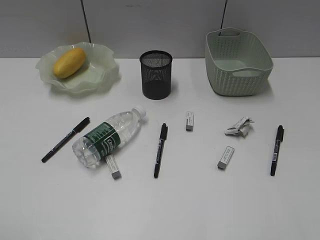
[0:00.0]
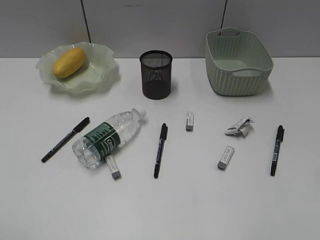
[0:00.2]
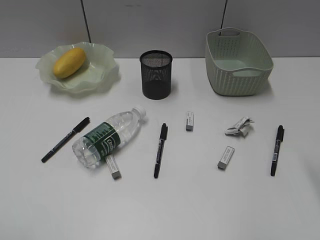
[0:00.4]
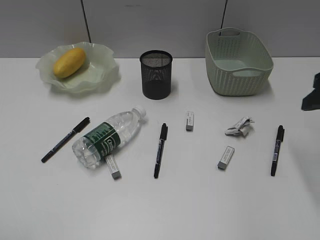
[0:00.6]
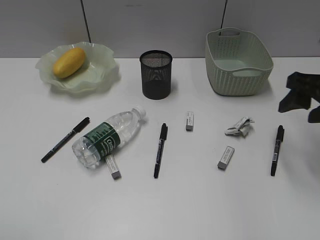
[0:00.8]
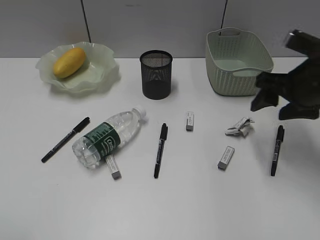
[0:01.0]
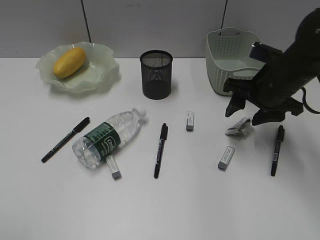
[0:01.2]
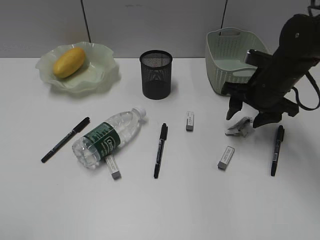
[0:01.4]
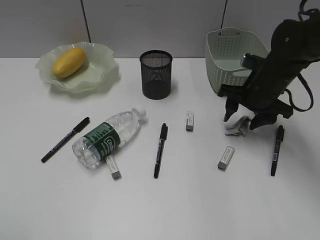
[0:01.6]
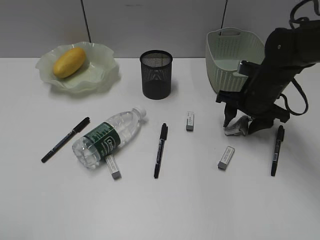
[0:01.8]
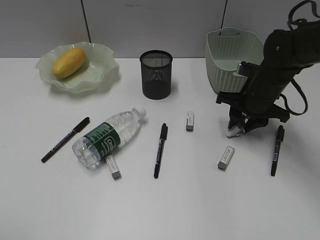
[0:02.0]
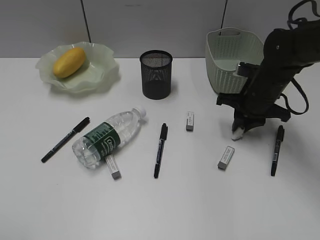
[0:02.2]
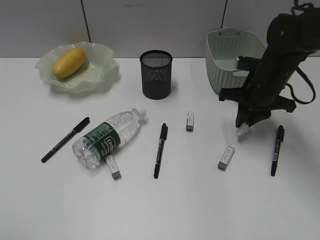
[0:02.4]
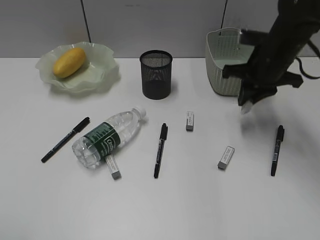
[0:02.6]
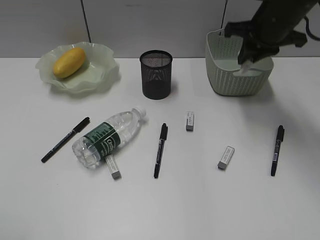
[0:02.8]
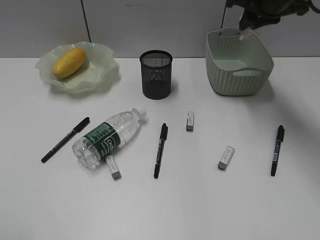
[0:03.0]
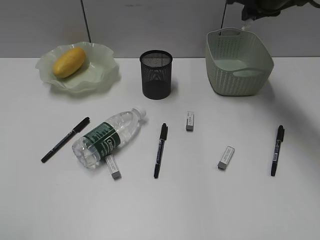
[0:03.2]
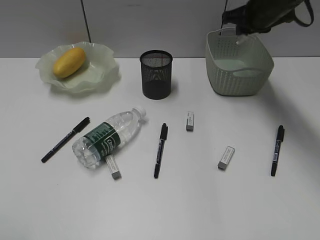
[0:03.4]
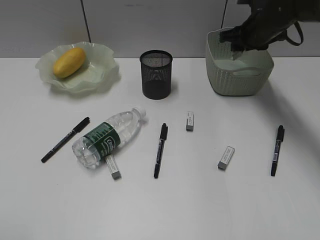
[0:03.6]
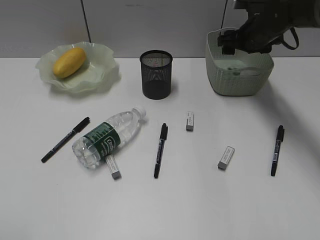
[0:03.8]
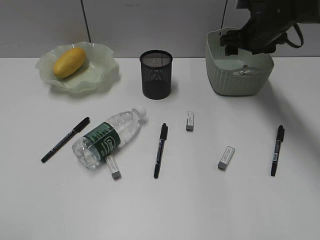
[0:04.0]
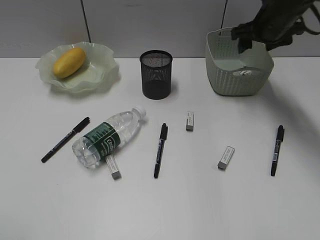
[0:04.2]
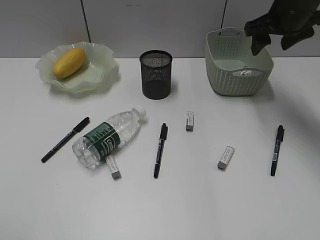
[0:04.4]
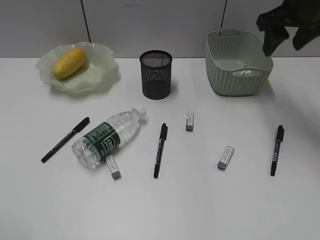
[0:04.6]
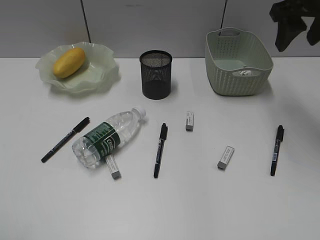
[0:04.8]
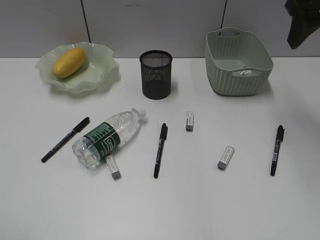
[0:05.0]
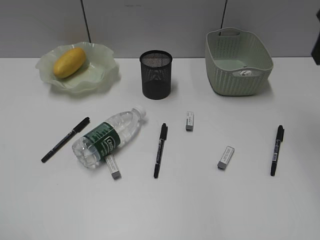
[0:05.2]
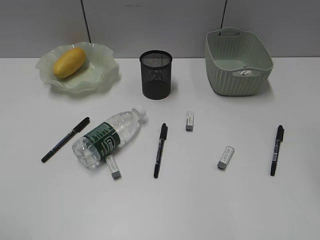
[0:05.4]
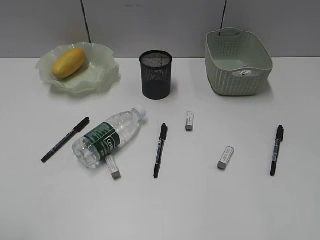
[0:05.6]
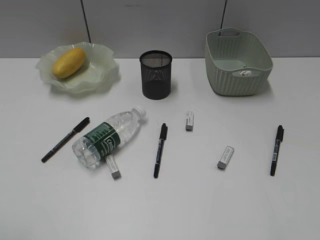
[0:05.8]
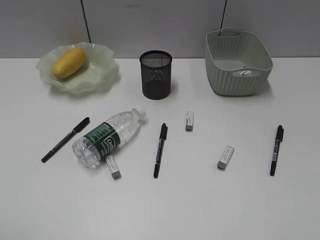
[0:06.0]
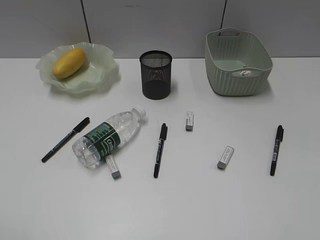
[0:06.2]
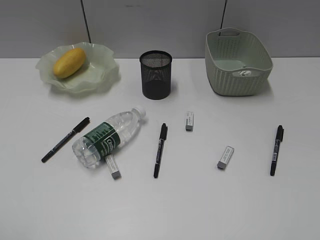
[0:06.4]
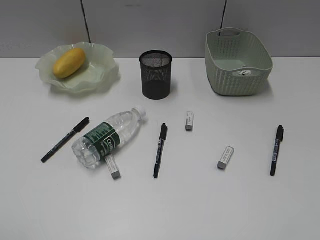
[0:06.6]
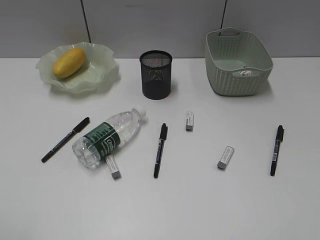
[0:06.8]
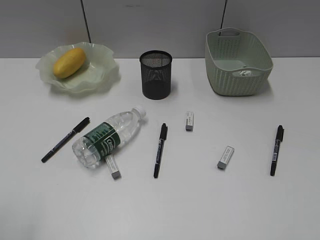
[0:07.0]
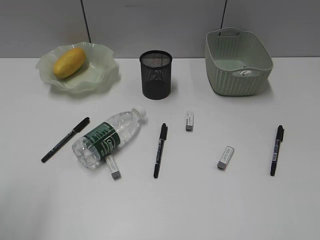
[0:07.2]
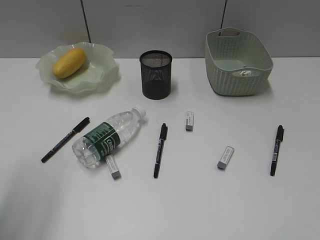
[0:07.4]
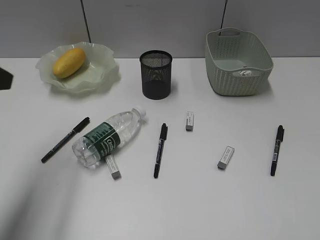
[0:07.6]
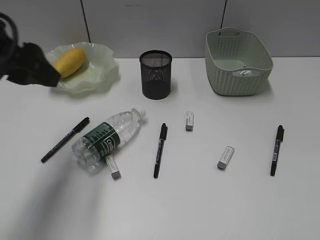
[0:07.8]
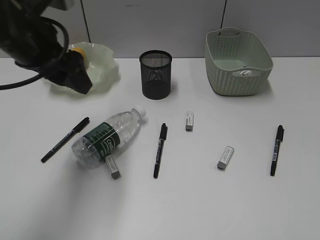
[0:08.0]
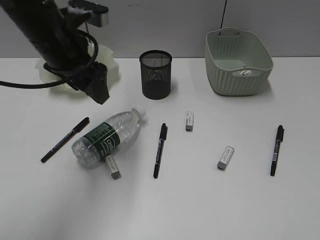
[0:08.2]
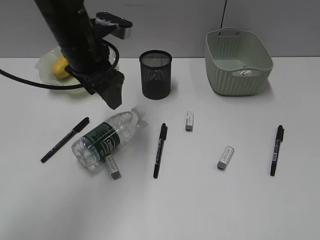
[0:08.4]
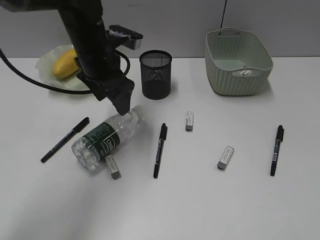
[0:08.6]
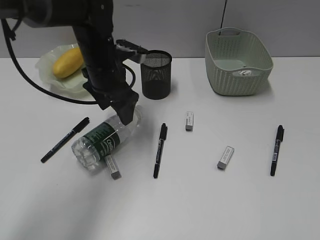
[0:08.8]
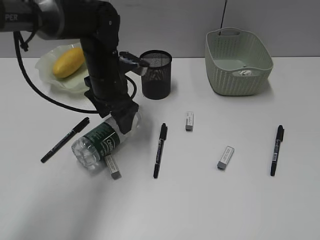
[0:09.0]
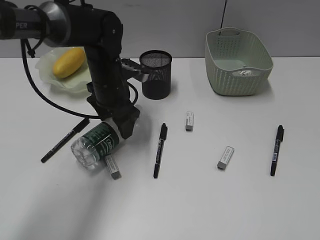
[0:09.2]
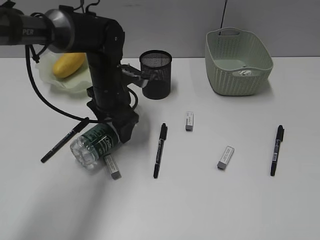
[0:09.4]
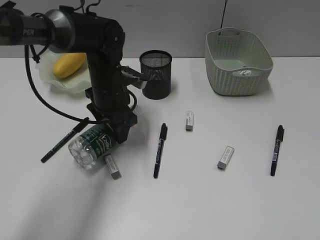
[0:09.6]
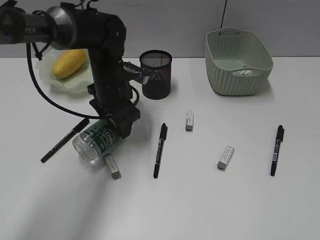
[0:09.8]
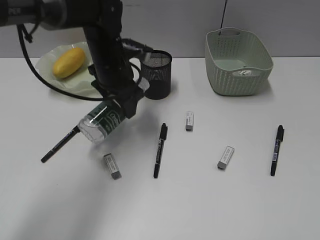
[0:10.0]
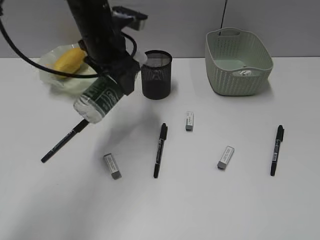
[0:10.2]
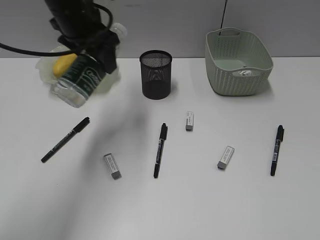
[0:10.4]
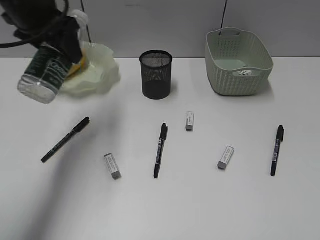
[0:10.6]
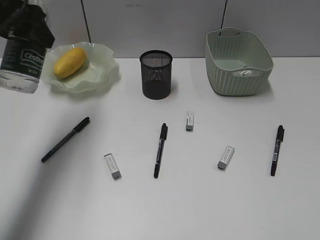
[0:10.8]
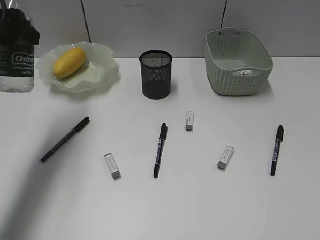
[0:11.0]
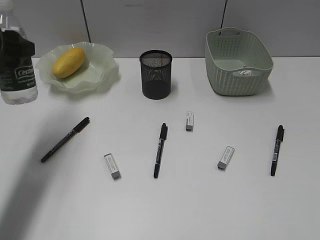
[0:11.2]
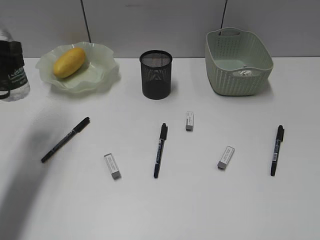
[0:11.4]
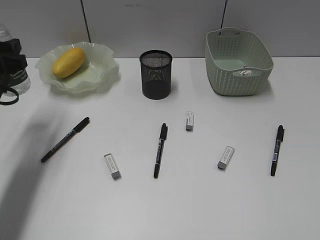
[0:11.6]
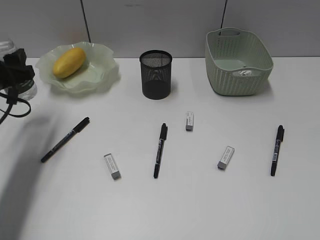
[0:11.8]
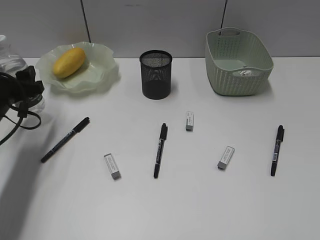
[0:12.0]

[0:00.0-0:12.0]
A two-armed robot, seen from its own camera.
Step, 0:00.0 to 0:02.2: Grasp the waste paper with right gripper.
Step, 0:02.4 to 0:03.8: Place the waste paper in the basket with right gripper.
Step, 0:04.0 to 0:09.6: Grasp the bottle with left gripper.
0:00.0 to 0:01.6: The right gripper goes some 35 cm forward and downward.
0:01.6 to 0:03.0: The right gripper shifts some 15 cm upward, and closes.
0:03.0 to 0:04.4: The right gripper reaches approximately 10 cm downward, then returns, and opens its fingers.
0:04.4 to 0:06.0: The right gripper is displaced backward by roughly 40 cm.
0:06.0 to 0:07.6: The left gripper goes roughly 20 cm forward.
0:07.6 to 0:09.0: The left gripper heads forward, to the right and downward, covering roughly 30 cm.
0:09.0 to 0:10.4: The left gripper is displaced upward by approximately 15 cm.
0:10.4 to 0:12.0: The left gripper moves downward and to the left, roughly 20 cm.

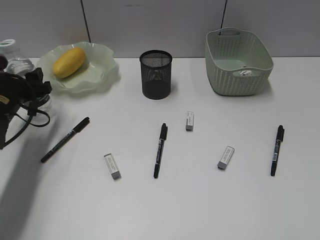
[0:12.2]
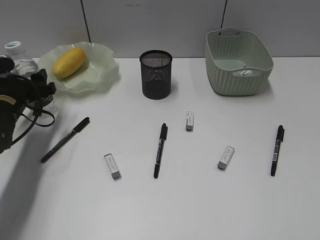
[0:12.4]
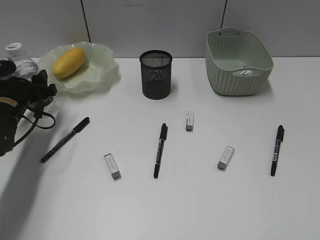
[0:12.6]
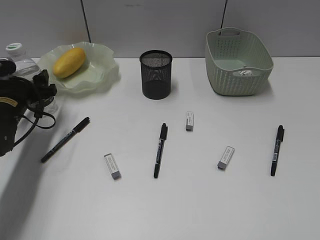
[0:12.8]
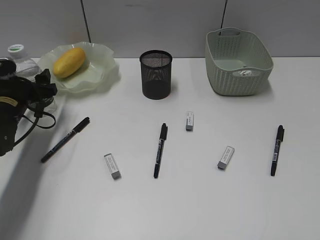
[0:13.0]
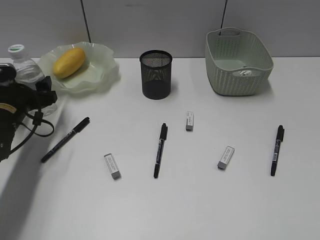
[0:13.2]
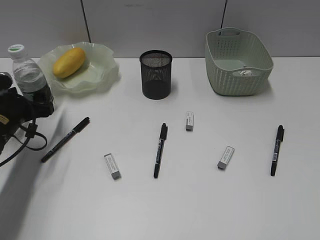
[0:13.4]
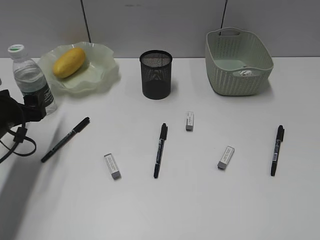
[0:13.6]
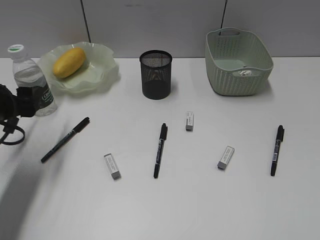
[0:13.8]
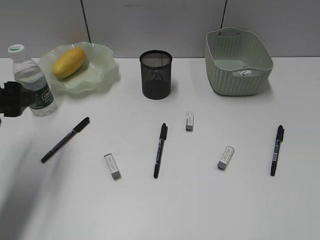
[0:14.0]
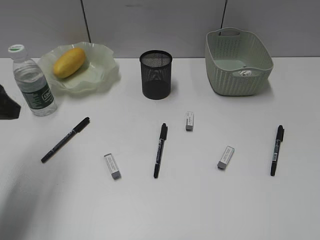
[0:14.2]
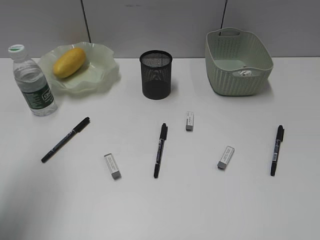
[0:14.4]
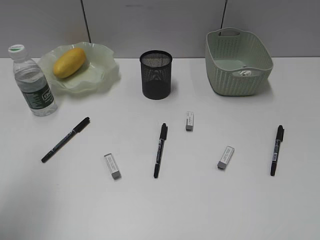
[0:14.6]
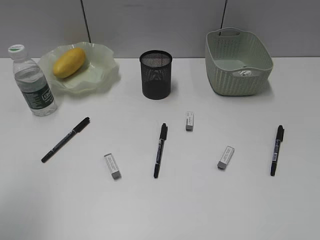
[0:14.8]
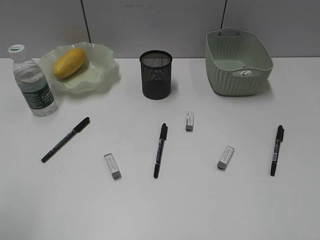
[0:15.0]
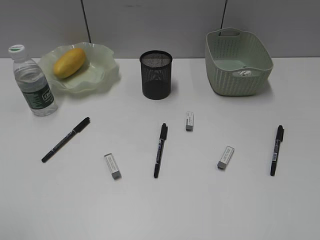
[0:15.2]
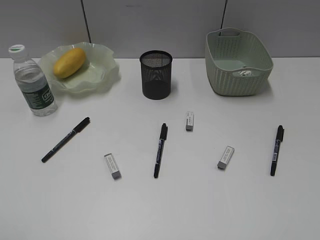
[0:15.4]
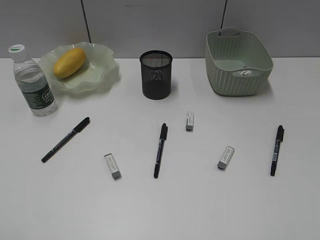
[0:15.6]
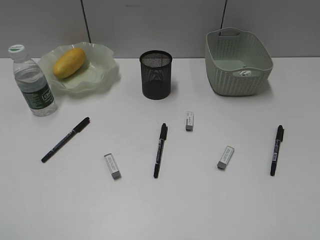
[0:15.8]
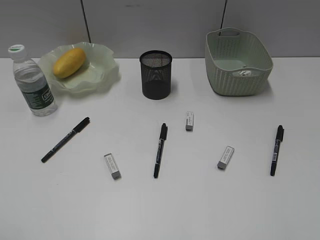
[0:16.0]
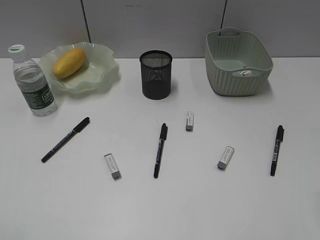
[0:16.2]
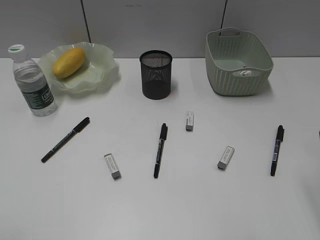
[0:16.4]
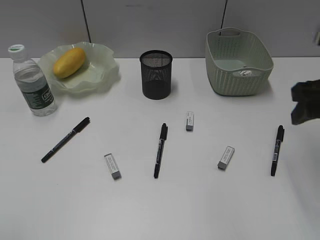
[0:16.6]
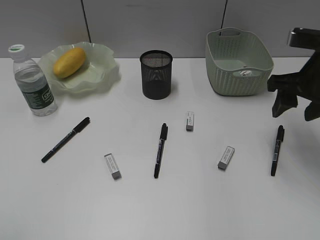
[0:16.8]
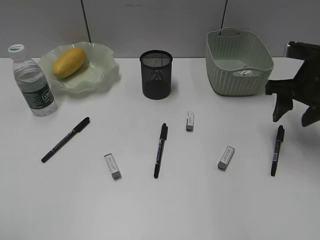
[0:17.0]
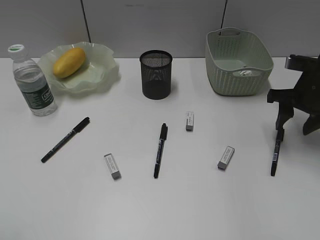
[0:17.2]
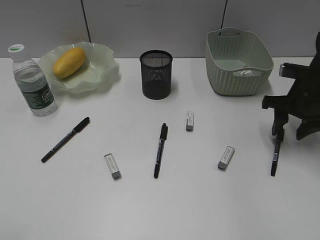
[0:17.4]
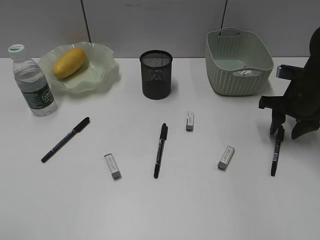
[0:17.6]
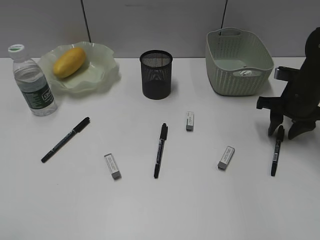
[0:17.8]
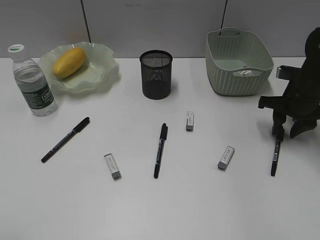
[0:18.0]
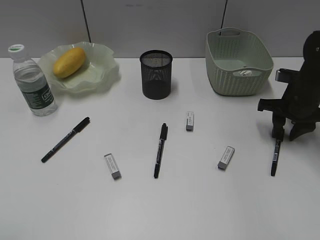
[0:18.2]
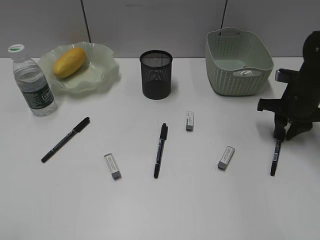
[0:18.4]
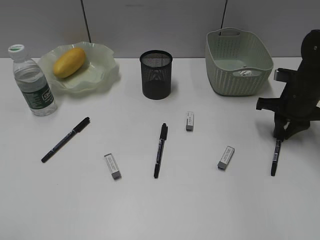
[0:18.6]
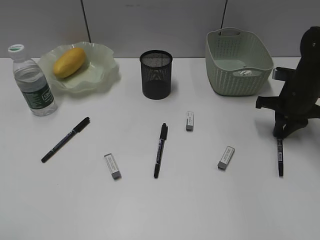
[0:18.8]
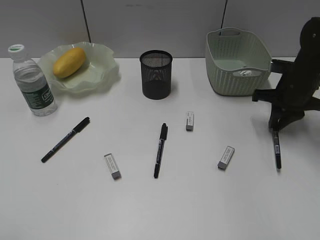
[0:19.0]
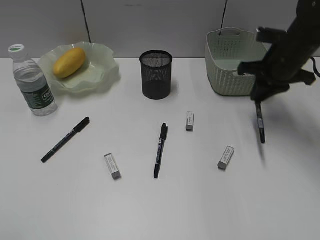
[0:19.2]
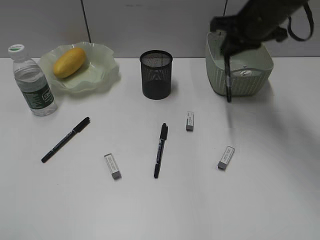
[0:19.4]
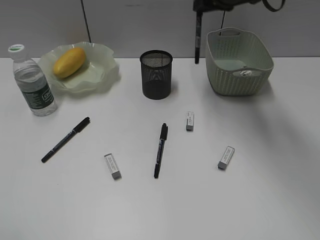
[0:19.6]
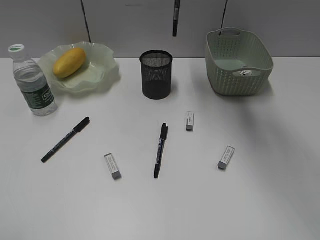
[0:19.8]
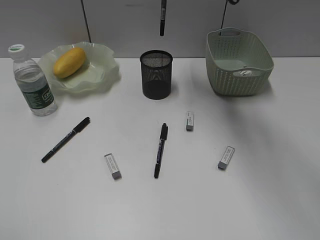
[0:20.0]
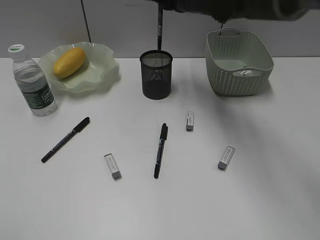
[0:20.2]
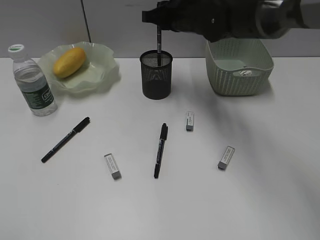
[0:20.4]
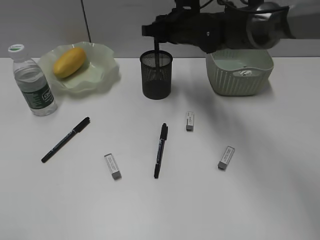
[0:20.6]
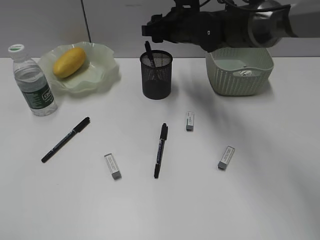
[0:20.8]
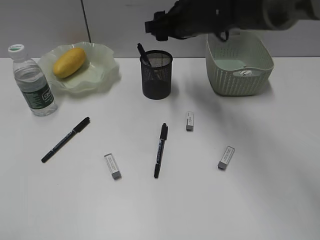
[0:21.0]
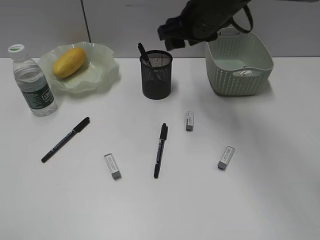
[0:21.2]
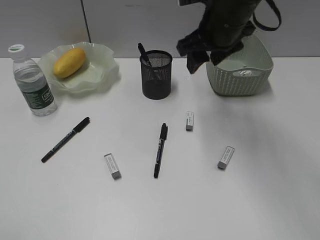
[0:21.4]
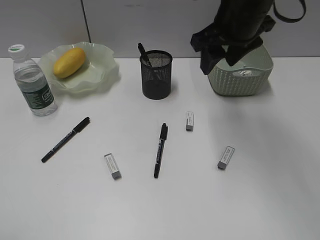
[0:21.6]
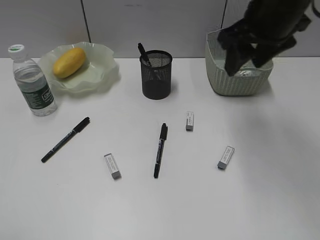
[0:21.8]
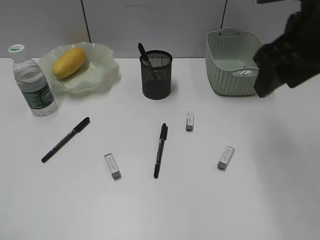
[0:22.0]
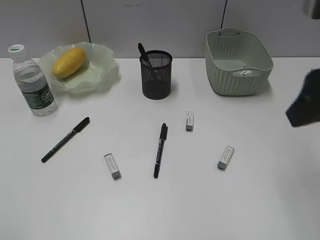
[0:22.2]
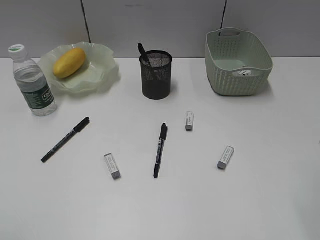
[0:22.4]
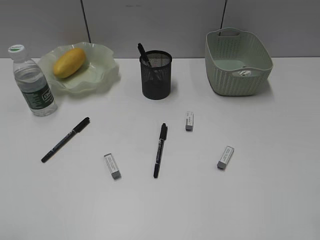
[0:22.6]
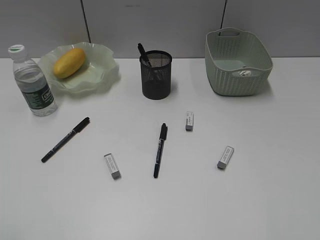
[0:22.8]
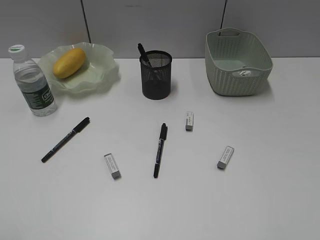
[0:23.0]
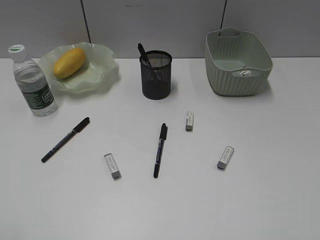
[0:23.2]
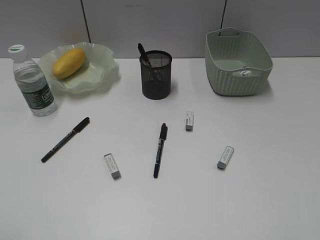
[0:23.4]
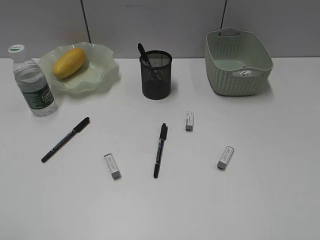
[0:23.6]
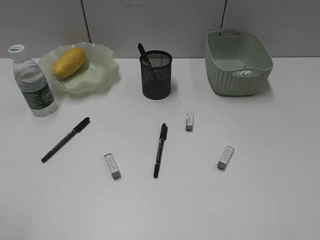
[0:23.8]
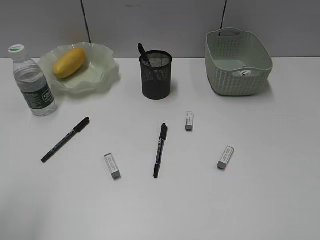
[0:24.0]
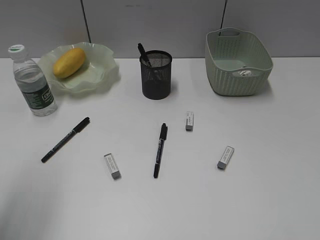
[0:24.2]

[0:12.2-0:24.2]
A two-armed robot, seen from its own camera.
Step, 0:13.6 to 0:18.6: Grasp the black pen with right gripper.
Step, 0:18.8 to 0:20.8: Place the black pen in pen holder with right gripper.
0:12.2 to 0:13.8: The left gripper is displaced backward by approximately 10 cm.
0:13.8 to 0:15.2: The left gripper goes some 30 cm backward and upward.
0:15.2 to 0:16.6: The right gripper is displaced forward by approximately 25 cm.
0:16.6 to 0:18.2: The right gripper goes approximately 20 cm downward and forward, and closes up.
0:18.2 to 0:19.8: The right gripper is displaced upward and to the left by roughly 30 cm, and closes its fingers.
0:19.8 to 0:21.2: The right gripper travels downward by about 5 cm, and opens.
0:21.2 to 0:22.6: The right gripper heads backward and to the right, covering some 40 cm.
0:22.6 to 0:24.2: The left gripper moves forward, approximately 15 cm.
